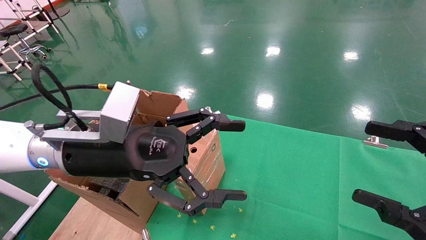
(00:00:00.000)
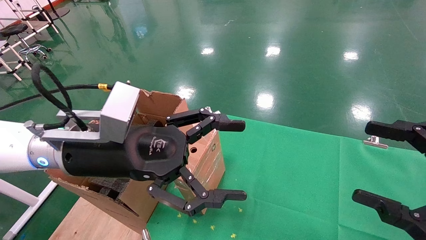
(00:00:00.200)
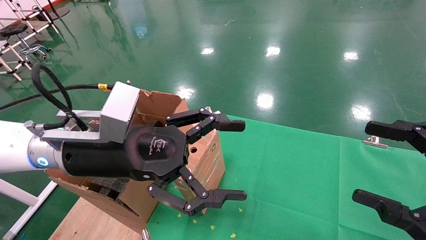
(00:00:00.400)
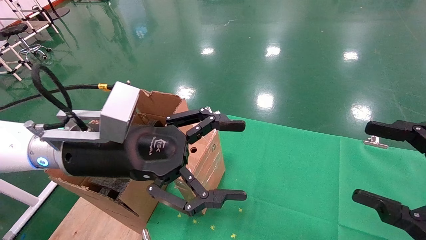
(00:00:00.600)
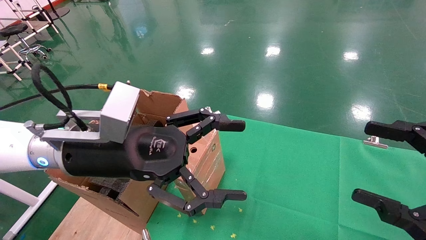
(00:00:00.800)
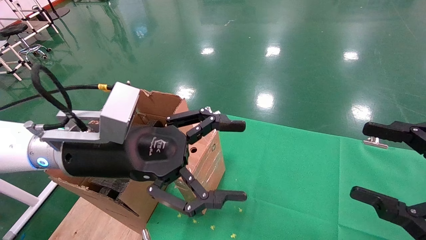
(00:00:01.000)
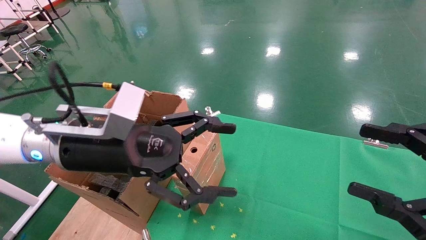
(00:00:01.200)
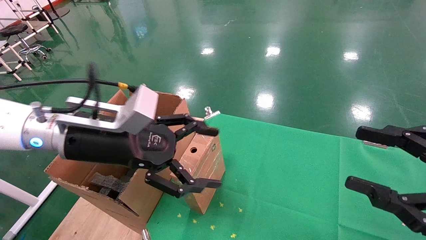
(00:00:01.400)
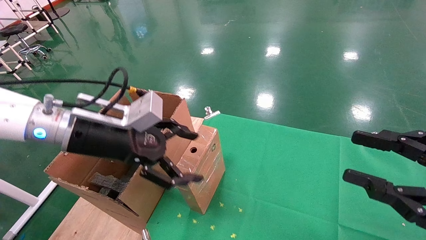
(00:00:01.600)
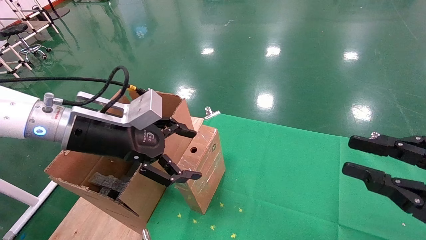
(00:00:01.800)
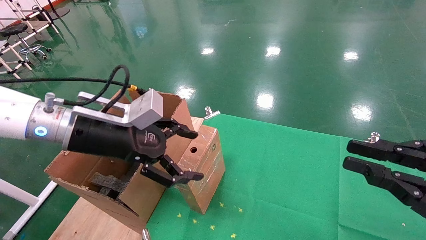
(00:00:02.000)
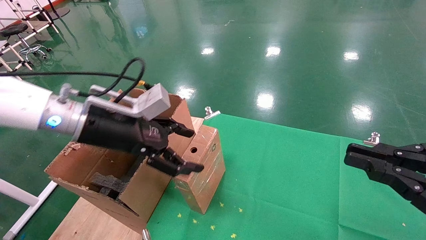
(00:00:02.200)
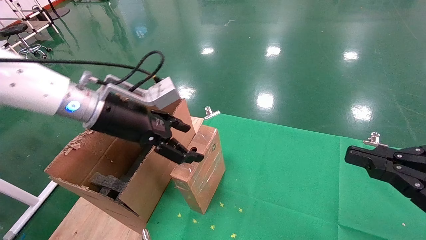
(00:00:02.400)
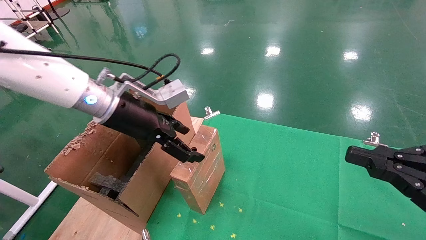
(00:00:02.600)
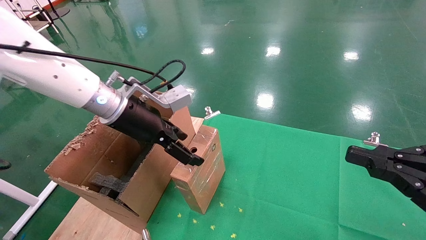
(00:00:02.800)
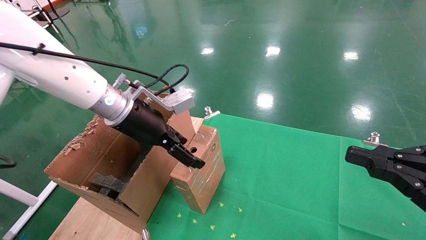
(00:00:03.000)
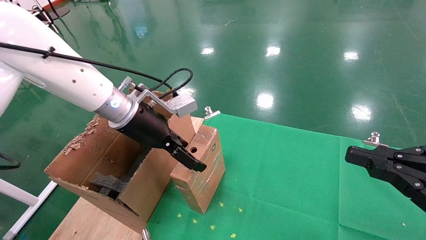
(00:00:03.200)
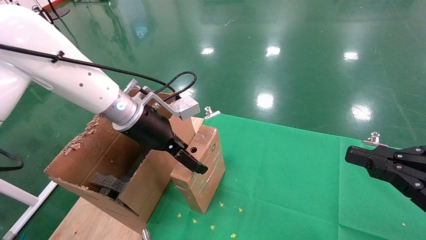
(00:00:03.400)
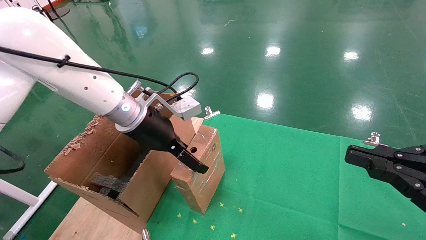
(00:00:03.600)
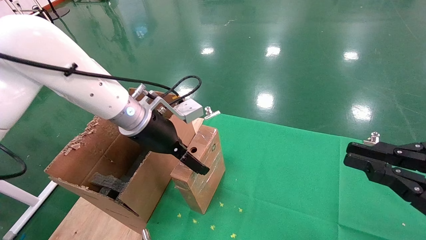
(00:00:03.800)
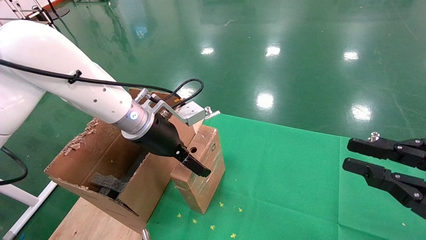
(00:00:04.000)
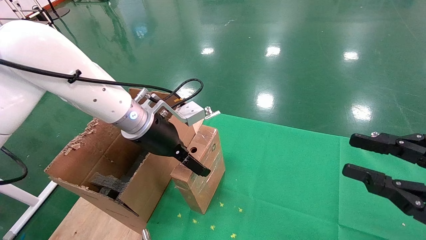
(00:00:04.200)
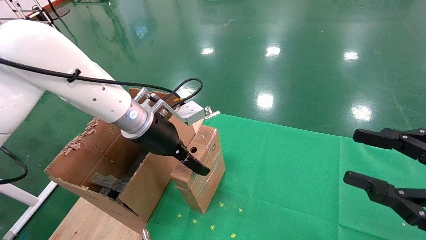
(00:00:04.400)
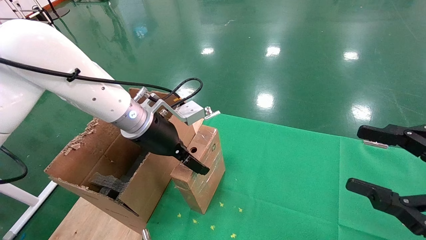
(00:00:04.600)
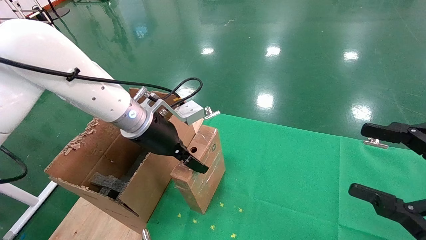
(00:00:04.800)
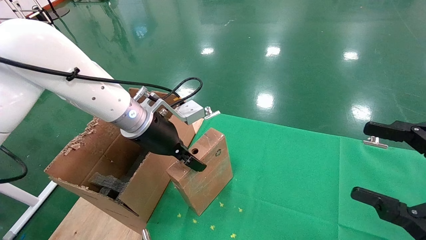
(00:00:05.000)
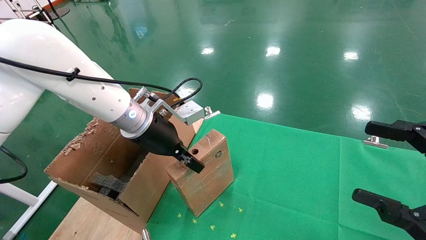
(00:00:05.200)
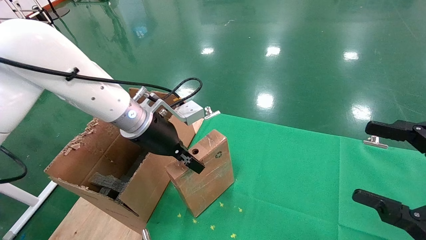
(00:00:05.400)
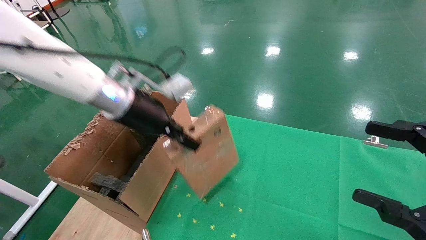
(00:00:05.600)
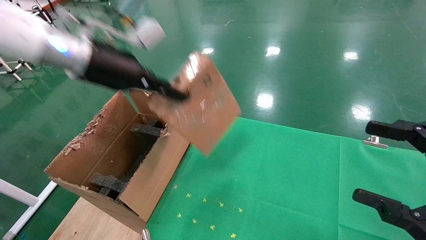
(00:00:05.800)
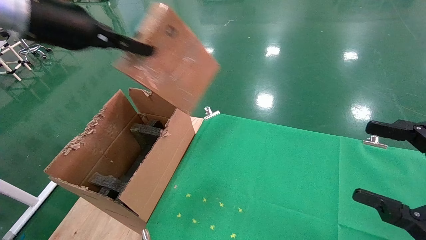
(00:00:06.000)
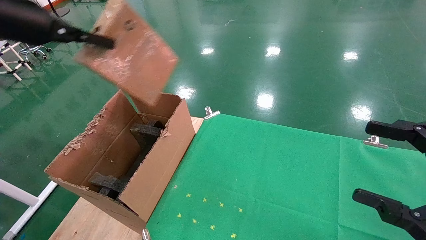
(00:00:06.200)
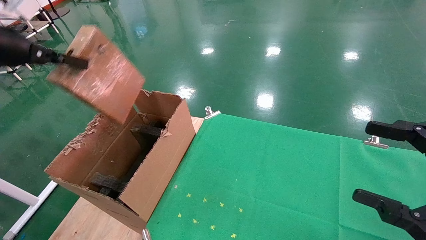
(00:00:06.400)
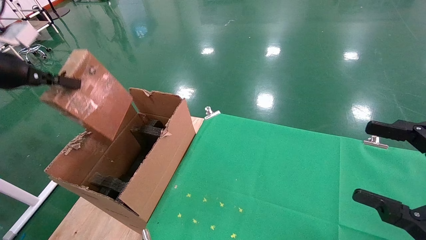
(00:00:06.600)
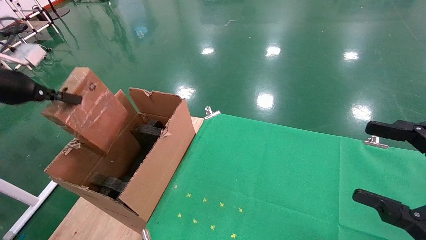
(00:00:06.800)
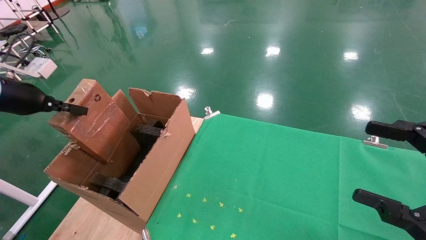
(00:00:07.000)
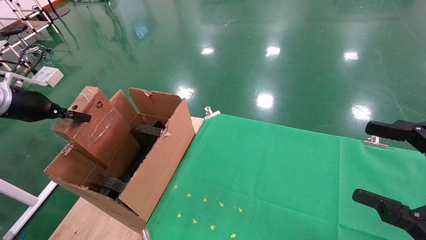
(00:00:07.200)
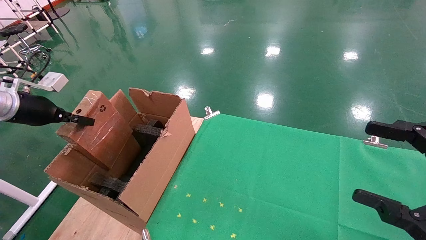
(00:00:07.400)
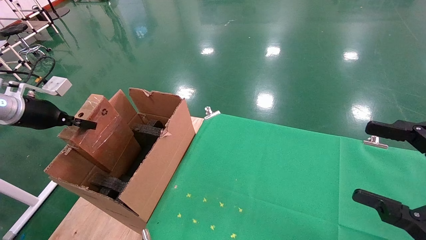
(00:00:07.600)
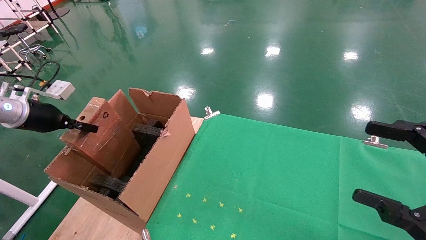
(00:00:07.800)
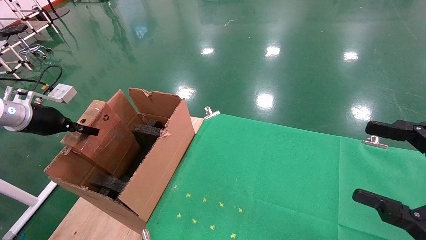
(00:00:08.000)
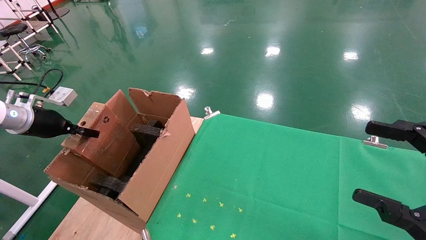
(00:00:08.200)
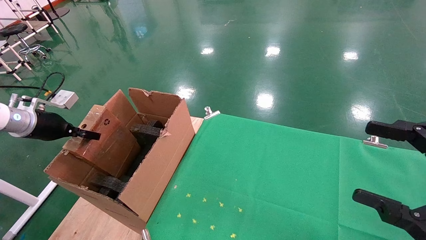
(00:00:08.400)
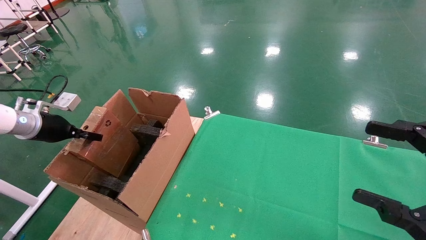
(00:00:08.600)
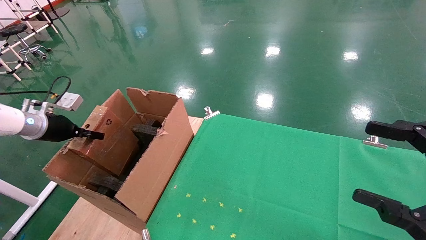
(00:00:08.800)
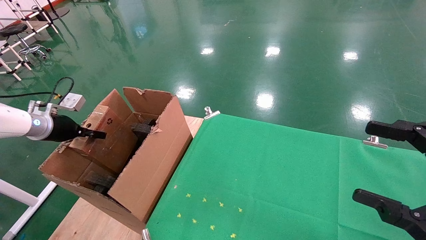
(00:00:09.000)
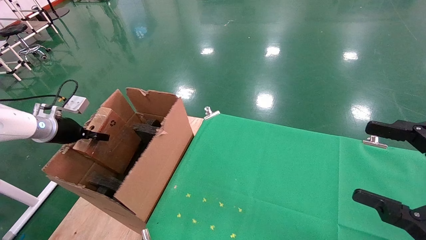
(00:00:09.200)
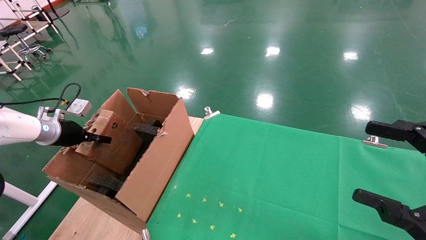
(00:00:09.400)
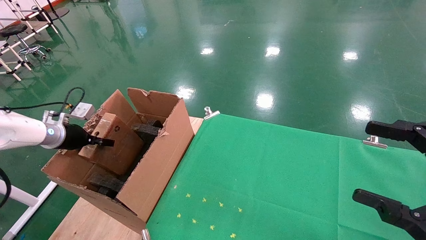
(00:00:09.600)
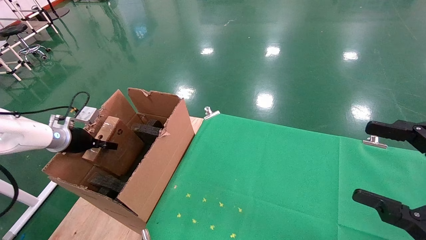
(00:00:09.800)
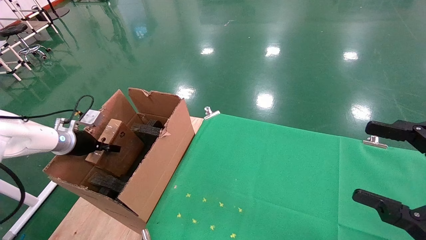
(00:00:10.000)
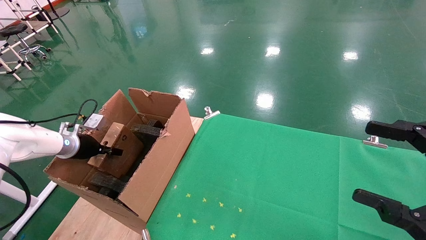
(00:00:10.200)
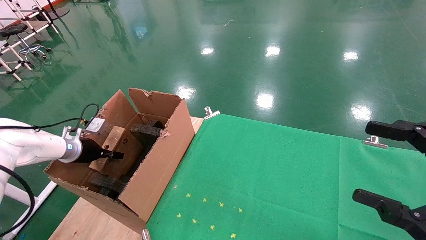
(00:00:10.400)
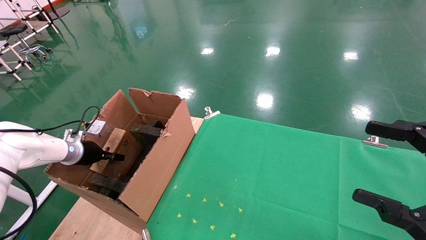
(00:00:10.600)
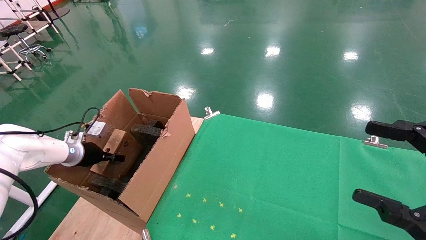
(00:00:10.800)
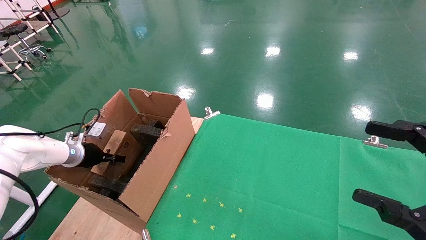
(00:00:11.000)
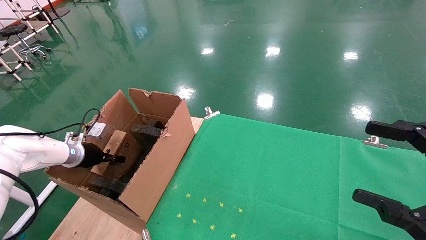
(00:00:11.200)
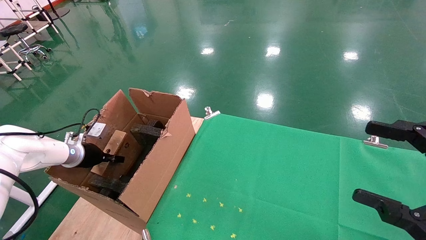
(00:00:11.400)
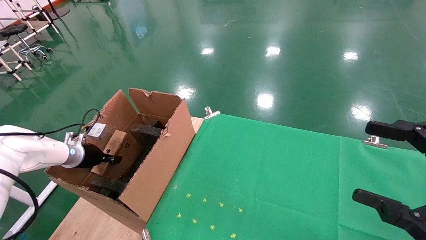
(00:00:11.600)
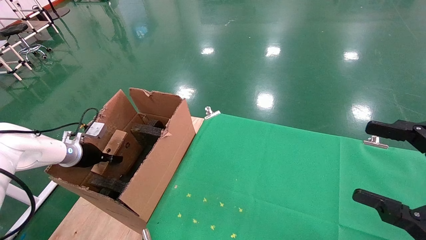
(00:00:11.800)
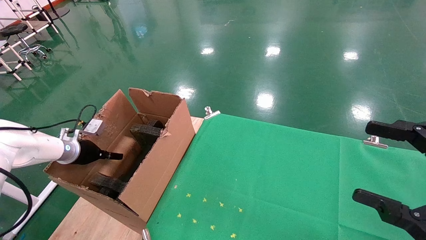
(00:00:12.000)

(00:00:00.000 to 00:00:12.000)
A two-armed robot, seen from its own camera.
Task of the whole recording: using a robotic arm to pick up a cardboard box and palace it the carton.
Step, 00:00:01.400 - 00:00:05.200: Pick up the mouse and the power cord paper box.
00:00:00.000 - 00:00:01.600: The left gripper shifts by some 5 cm. Meanwhile the right gripper closes its fingers.
00:00:01.600 - 00:00:03.000: The left gripper shifts about 10 cm forward; the right gripper closes.
00:00:03.000 - 00:00:04.400: The right gripper opens up.
00:00:04.400 - 00:00:06.000: The left gripper shifts about 20 cm upward and to the left, and closes. Meanwhile the right gripper opens its fingers.
00:00:06.000 - 00:00:07.600: The left gripper shifts roughly 25 cm to the left and downward.
00:00:07.600 - 00:00:09.000: The left gripper travels downward by roughly 5 cm.
00:00:09.000 - 00:00:10.400: The left gripper shifts some 10 cm downward.
00:00:10.400 - 00:00:12.000: The left gripper opens.

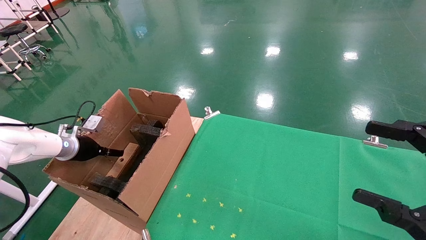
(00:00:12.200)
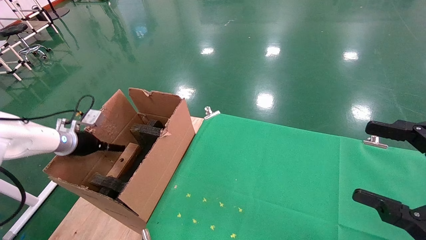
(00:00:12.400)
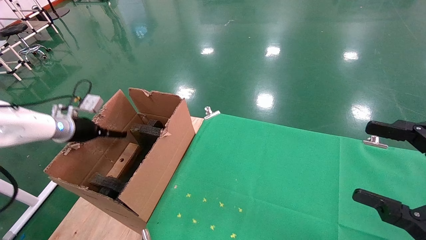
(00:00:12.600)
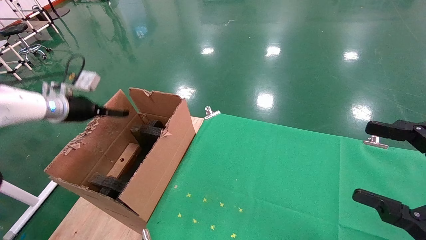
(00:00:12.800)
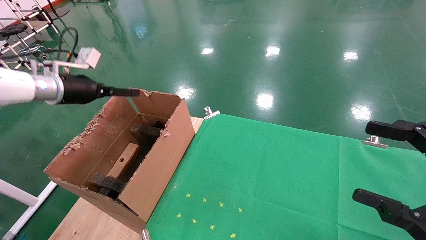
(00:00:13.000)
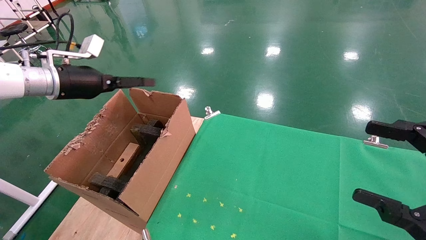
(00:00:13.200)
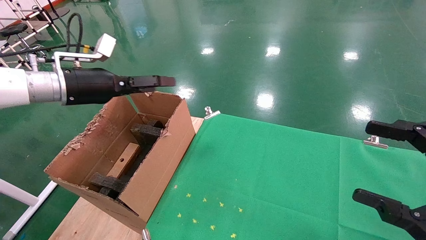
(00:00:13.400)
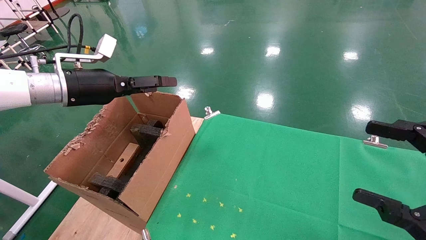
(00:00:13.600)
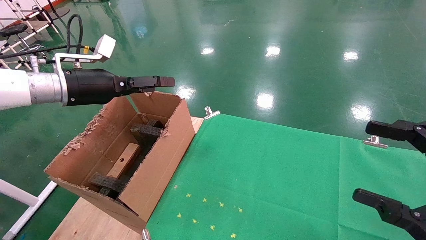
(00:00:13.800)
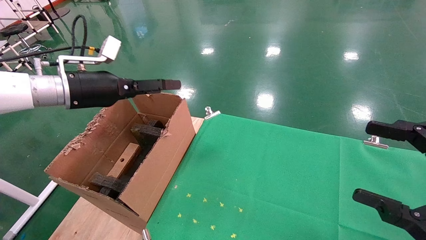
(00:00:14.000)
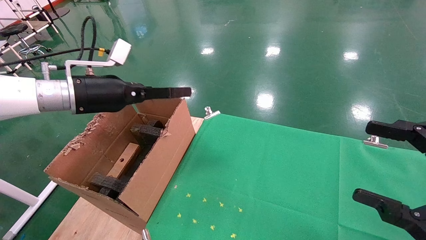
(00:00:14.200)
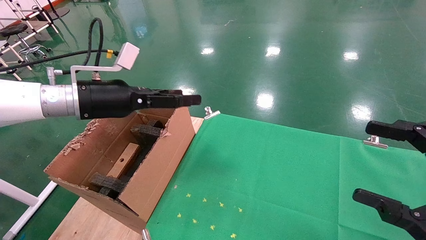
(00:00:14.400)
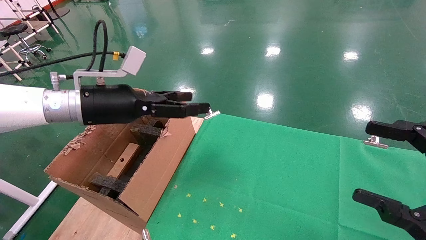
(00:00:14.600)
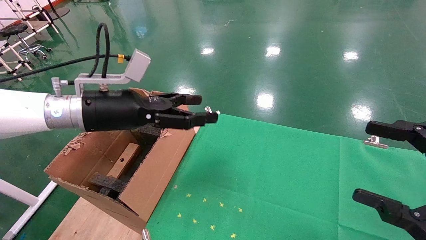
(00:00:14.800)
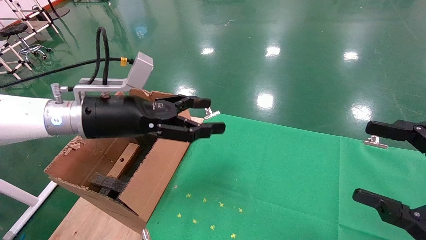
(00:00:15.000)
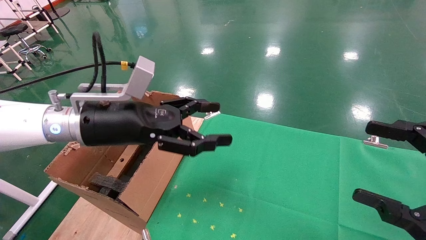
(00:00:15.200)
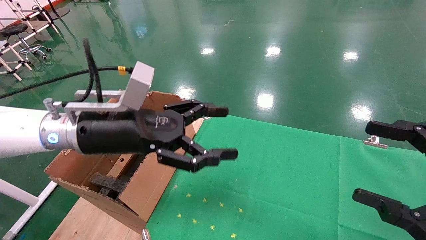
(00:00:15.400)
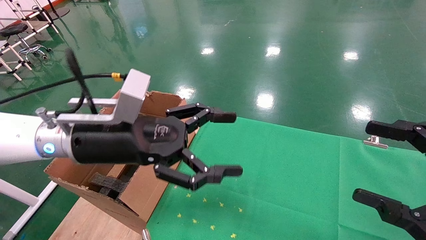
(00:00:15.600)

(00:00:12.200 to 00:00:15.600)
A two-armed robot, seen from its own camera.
Task of the whole recording: using a robotic arm to pick up a cardboard box and palace it the carton.
00:00:12.200 - 00:00:13.800: The left gripper heads upward and to the right, covering some 25 cm.
00:00:13.800 - 00:00:15.600: The left gripper is displaced to the right and backward by roughly 15 cm.
